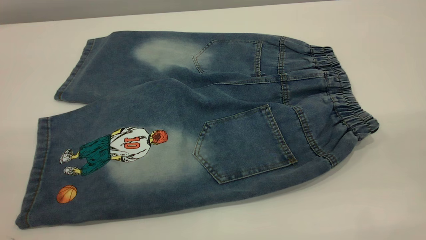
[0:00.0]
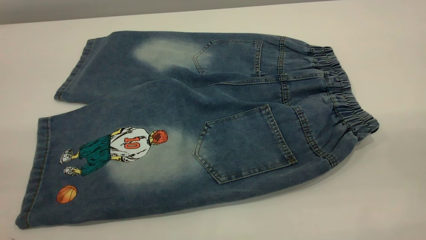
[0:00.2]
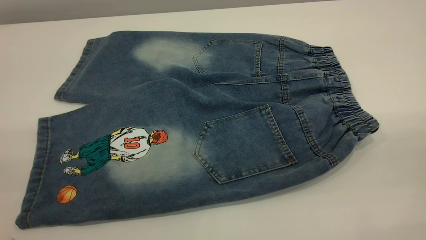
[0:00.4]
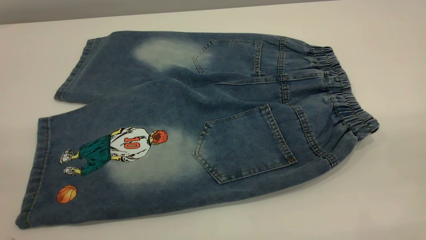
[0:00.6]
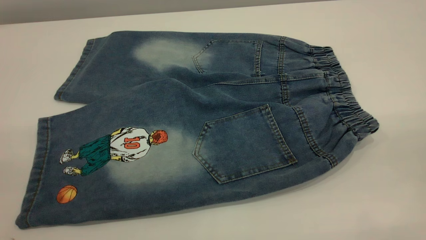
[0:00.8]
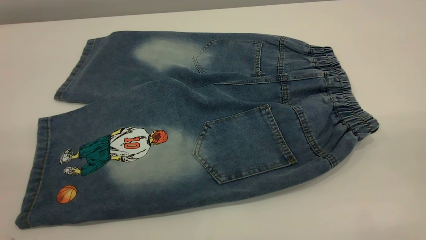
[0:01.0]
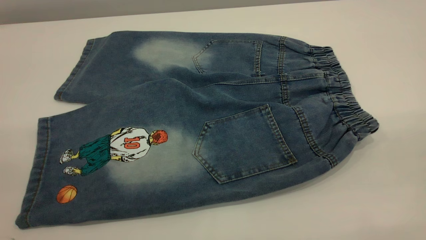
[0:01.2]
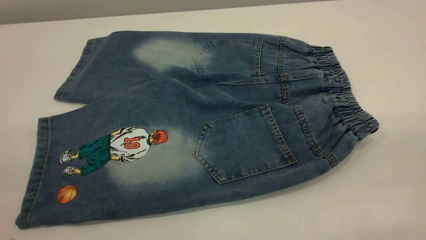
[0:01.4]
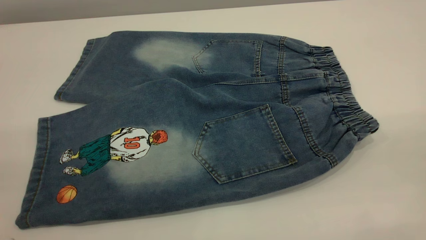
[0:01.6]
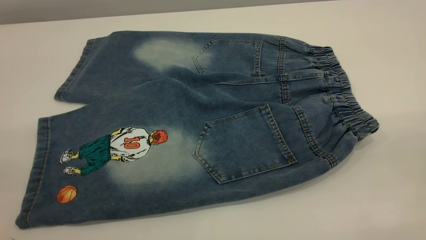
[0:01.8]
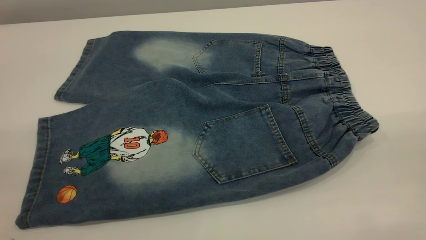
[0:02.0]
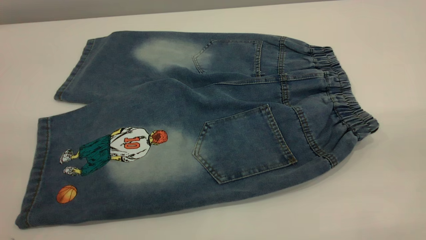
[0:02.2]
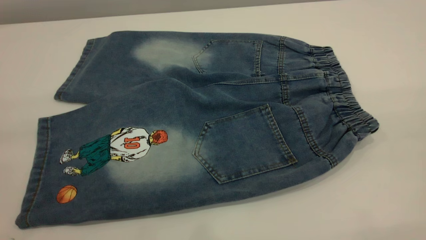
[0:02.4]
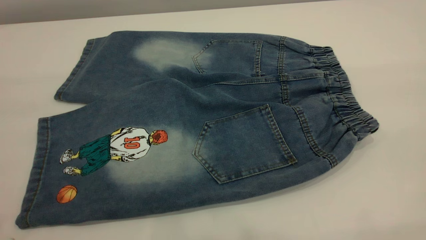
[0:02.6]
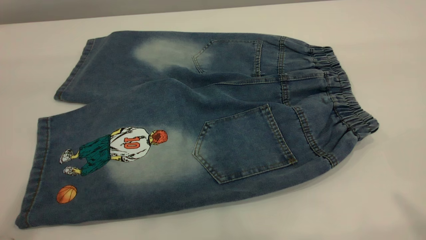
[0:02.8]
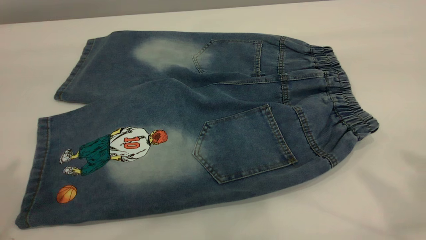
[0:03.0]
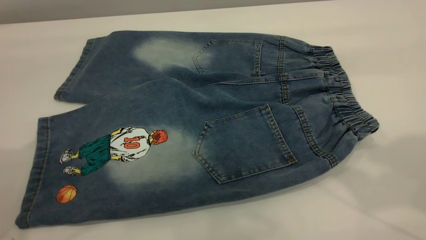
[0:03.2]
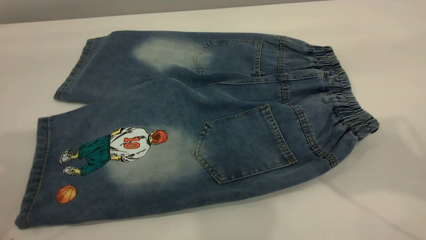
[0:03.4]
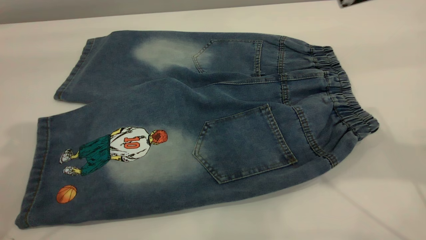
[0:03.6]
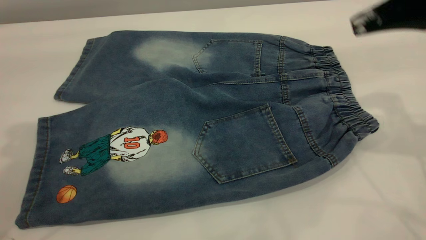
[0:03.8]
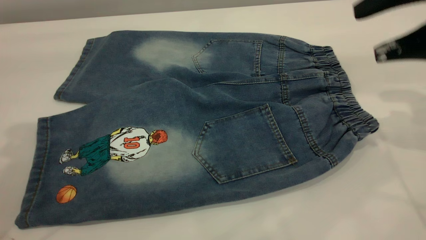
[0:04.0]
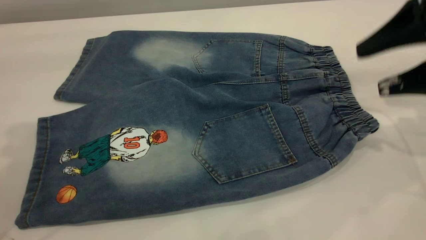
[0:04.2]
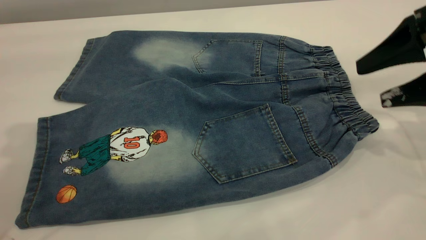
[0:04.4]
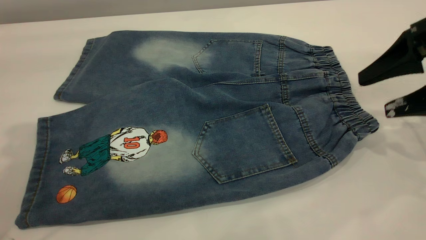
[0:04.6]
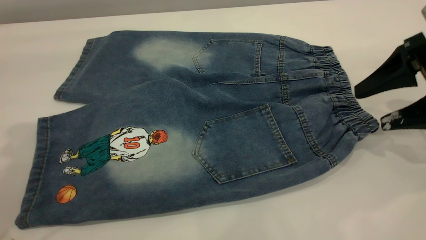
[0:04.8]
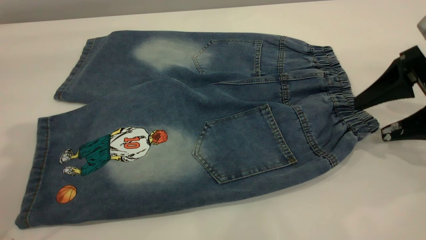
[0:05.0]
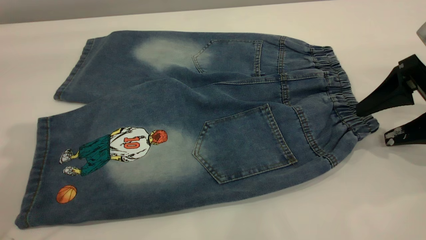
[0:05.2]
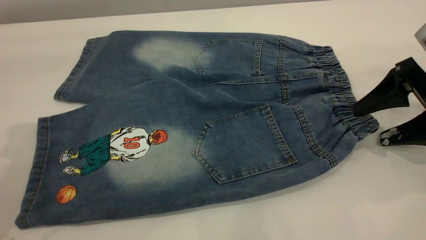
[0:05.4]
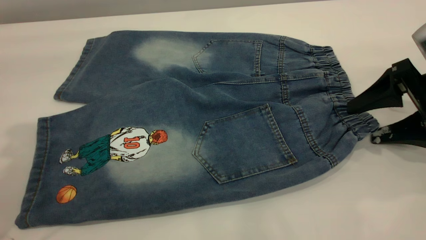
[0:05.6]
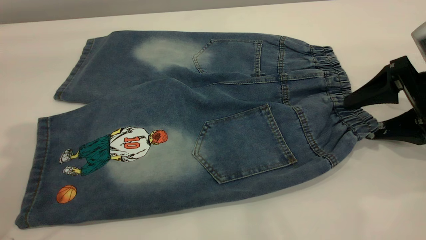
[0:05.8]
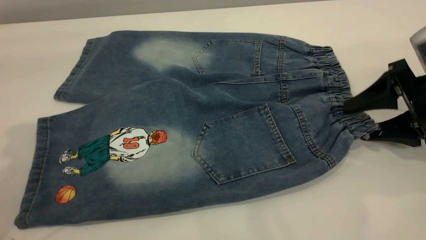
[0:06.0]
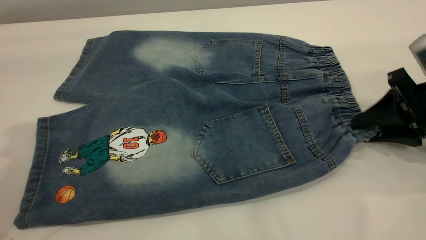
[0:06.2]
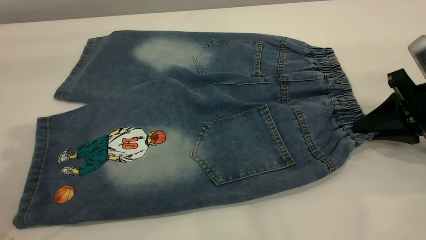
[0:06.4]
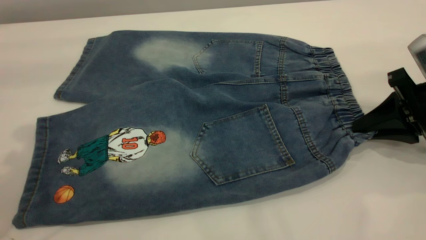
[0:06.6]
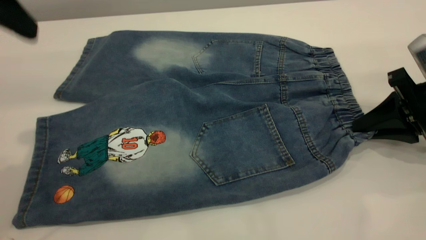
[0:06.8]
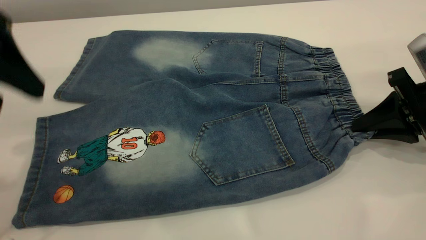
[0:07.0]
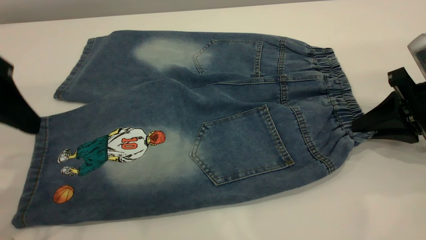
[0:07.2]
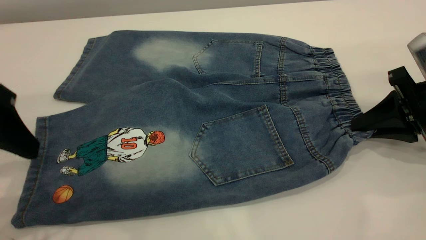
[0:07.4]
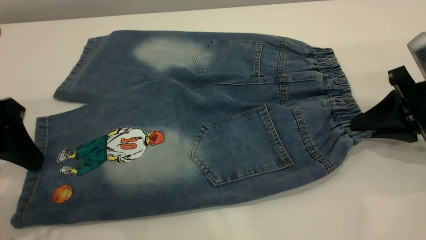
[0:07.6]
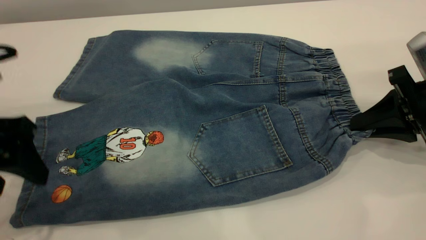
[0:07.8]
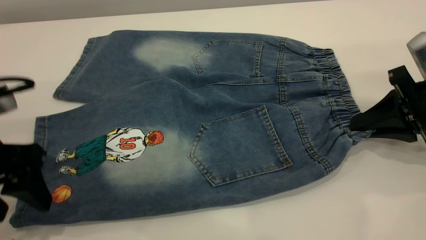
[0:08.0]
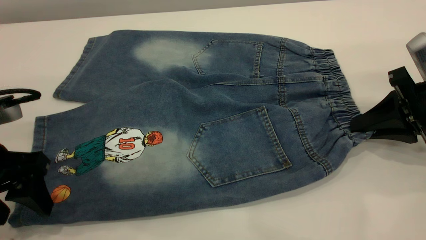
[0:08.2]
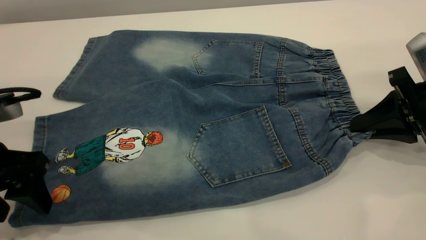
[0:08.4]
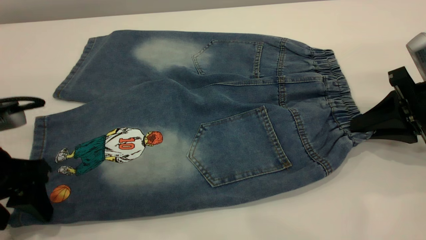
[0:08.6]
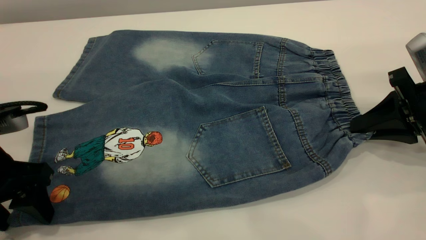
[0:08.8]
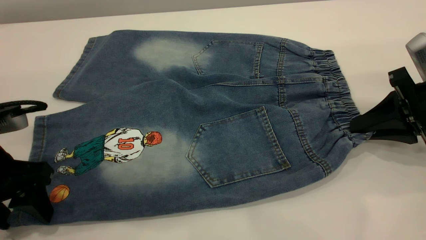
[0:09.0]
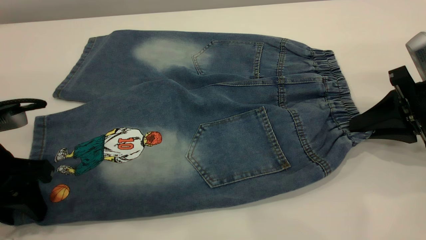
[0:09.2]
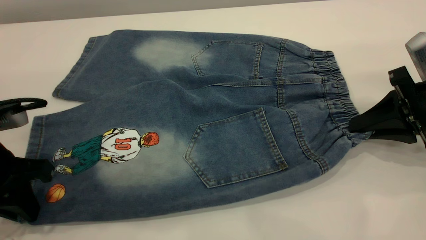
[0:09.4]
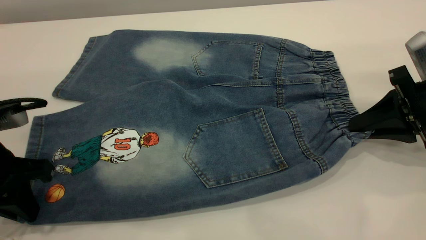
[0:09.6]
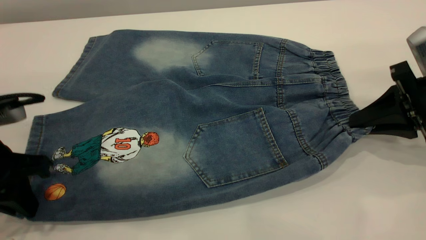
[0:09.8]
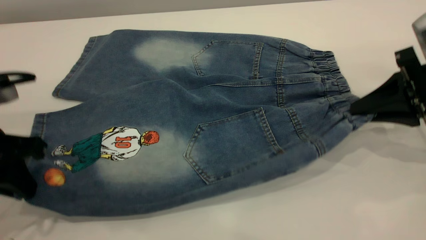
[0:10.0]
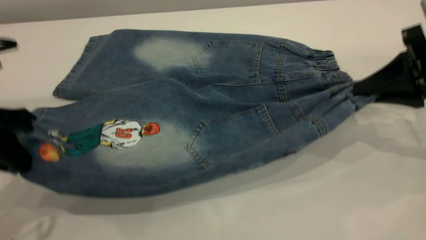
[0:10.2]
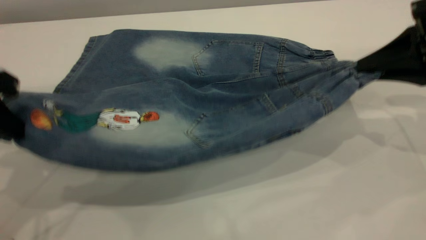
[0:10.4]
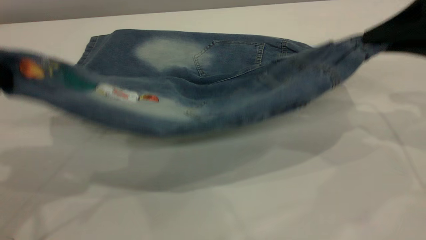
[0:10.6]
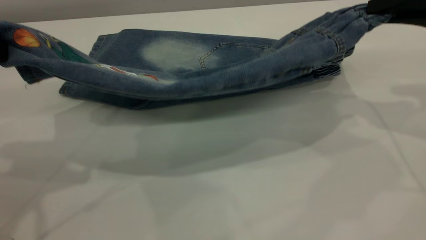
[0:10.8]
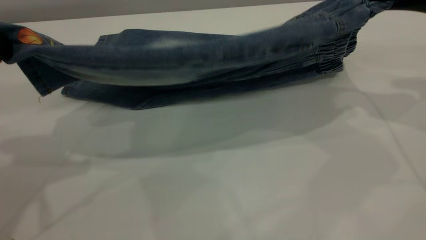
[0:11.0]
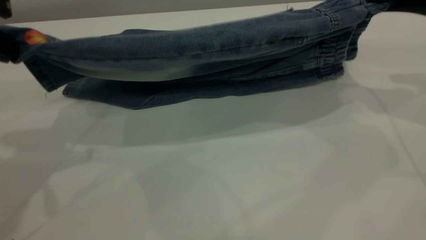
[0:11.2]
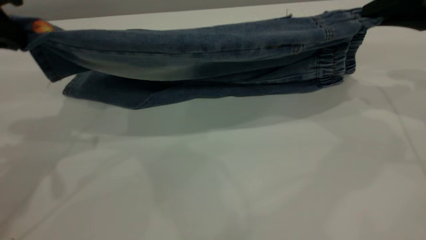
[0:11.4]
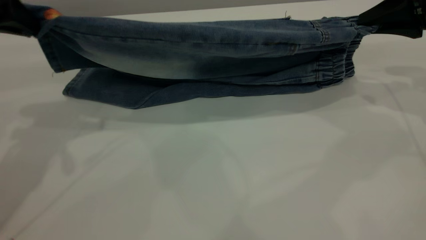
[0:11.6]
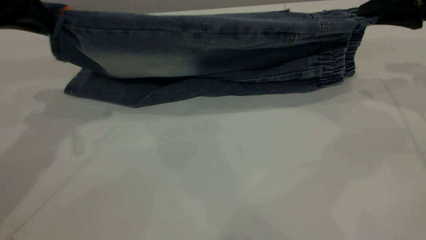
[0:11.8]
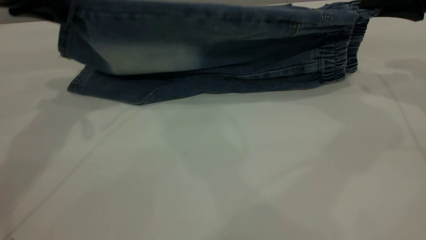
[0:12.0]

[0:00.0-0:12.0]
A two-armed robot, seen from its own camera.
0:00.0 to 0:01.6: The two grippers keep their place.
0:01.6 to 0:03.0: The right gripper moves forward and upward, about 20 cm, while the left gripper moves forward, roughly 15 cm.
0:03.0 to 0:04.4: The left gripper moves forward and downward, roughly 10 cm, while the right gripper shifts some 30 cm downward and forward.
0:04.4 to 0:06.0: The right gripper travels downward by approximately 10 cm.
0:06.0 to 0:07.6: The right gripper closes its fingers; the left gripper goes roughly 15 cm downward.
0:07.6 to 0:09.0: The left gripper is displaced downward by some 5 cm.
0:09.0 to 0:10.4: Both grippers travel together upward, some 10 cm. The left gripper closes.
0:10.4 to 0:12.0: The left gripper travels forward by about 15 cm; the right gripper travels forward by some 10 cm.

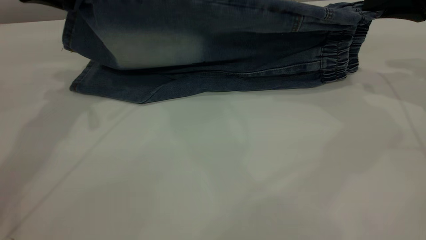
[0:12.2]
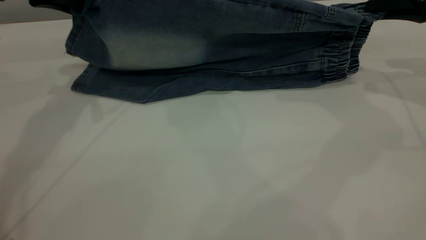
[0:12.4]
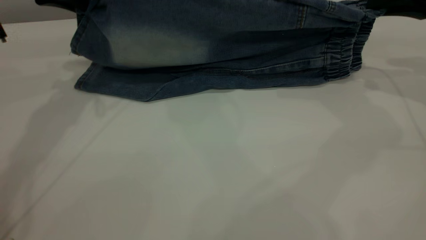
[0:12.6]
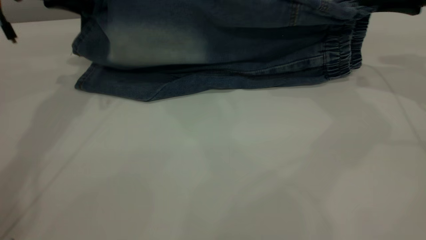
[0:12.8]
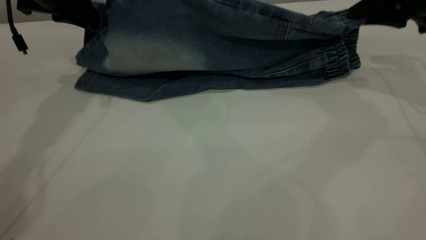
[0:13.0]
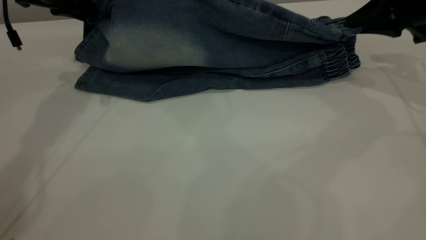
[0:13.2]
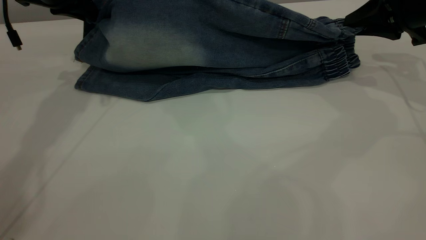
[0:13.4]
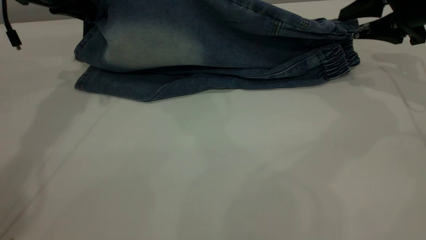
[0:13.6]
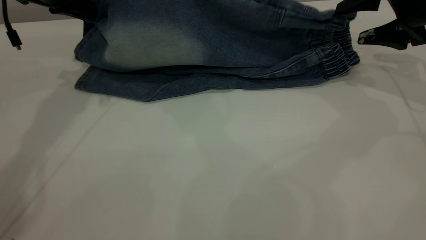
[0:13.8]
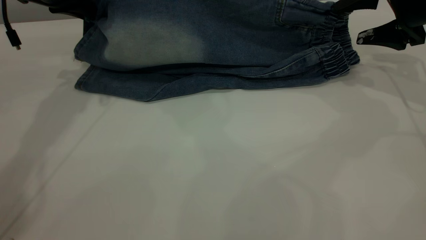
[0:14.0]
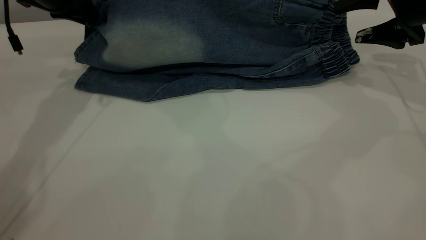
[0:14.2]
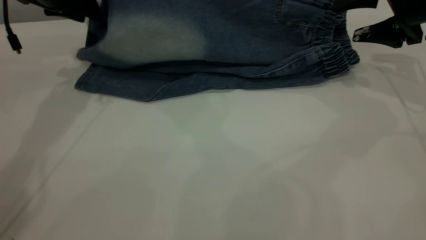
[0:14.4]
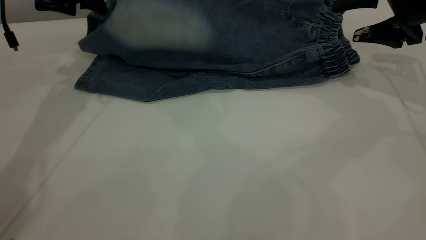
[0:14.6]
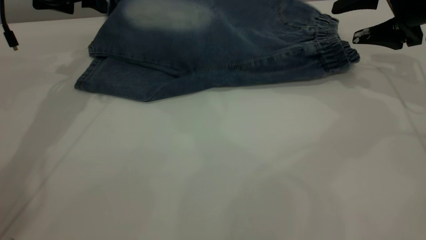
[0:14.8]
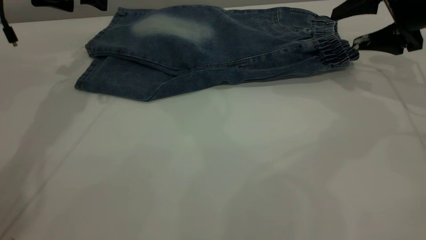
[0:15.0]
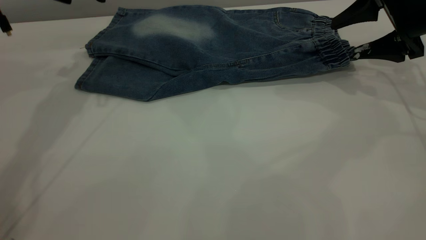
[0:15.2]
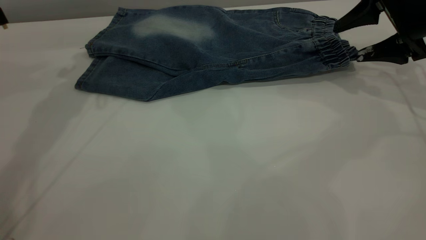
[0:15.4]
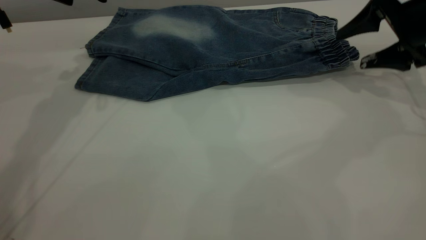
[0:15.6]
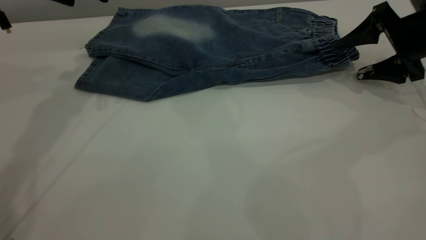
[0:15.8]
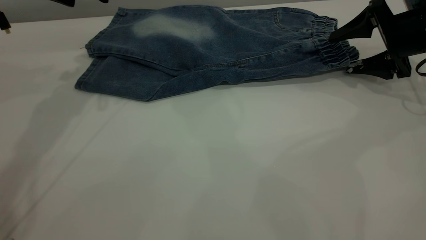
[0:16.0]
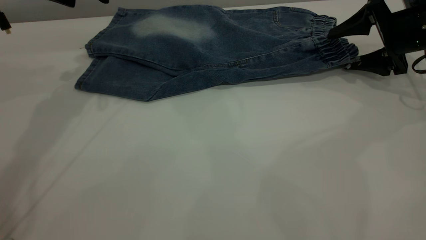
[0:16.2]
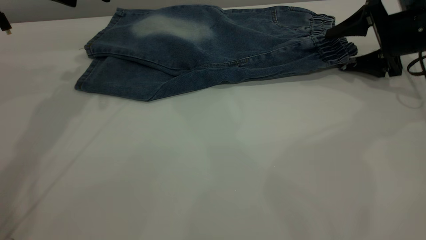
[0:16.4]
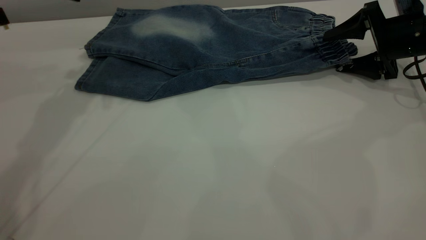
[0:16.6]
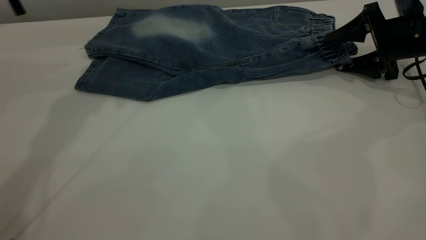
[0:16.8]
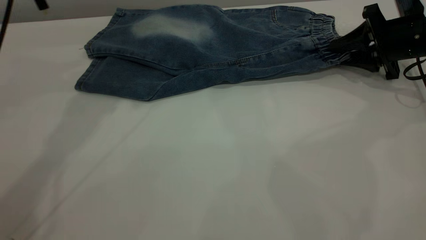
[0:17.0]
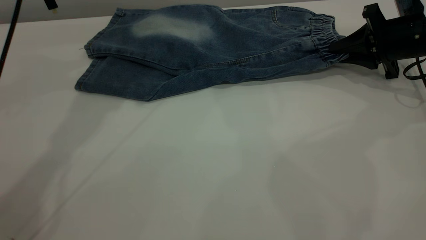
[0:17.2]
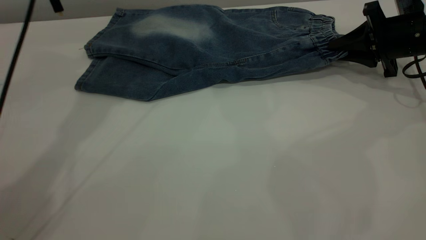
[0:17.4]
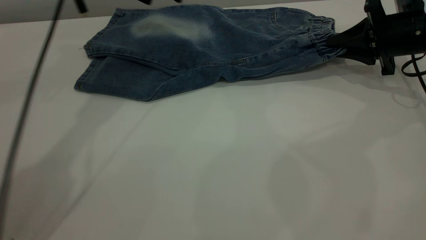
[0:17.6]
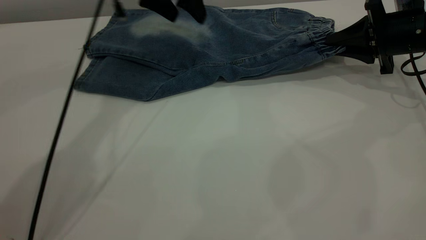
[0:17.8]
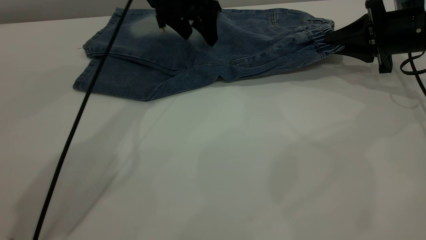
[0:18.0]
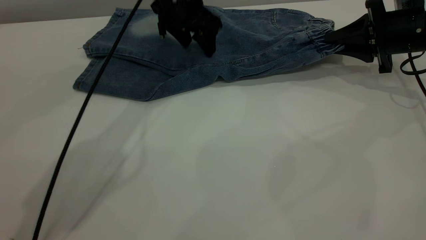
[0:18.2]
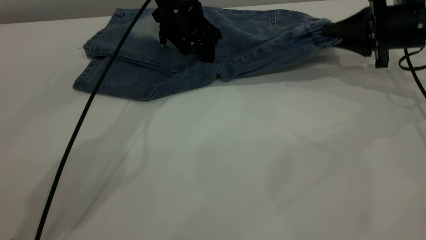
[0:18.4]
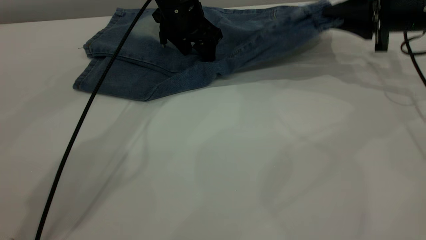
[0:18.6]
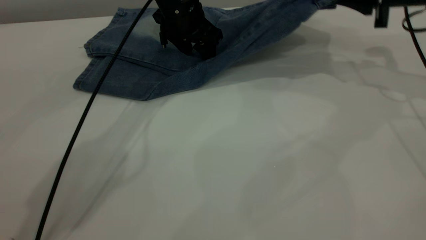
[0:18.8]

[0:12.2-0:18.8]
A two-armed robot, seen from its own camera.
Step, 0:12.2 to 0:14.8: Fold the bottom of the pants upward.
0:12.2 to 0:13.8: The right gripper opens. Meanwhile the left gripper changes place by about 5 cm.
0:13.8 to 0:15.4: The left gripper opens.
0:15.4 to 0:17.2: The left gripper heads to the right, covering some 5 cm. The right gripper heads downward, covering approximately 5 cm, and closes up.
0:17.2 to 0:18.8: The right gripper heads upward, covering roughly 10 cm. Meanwhile the left gripper shifts about 15 cm downward and to the right.
